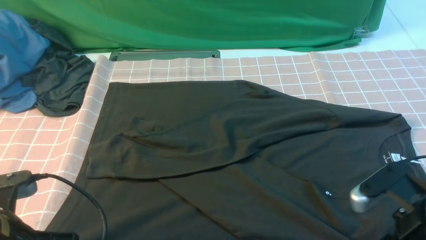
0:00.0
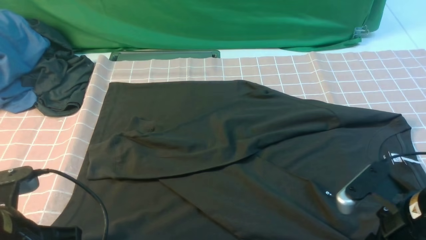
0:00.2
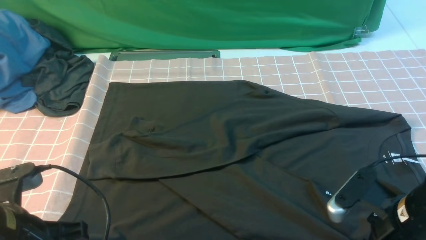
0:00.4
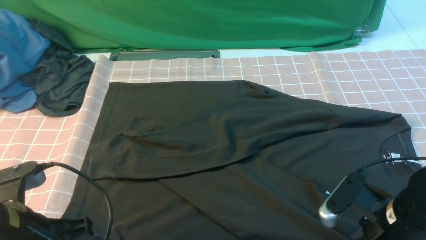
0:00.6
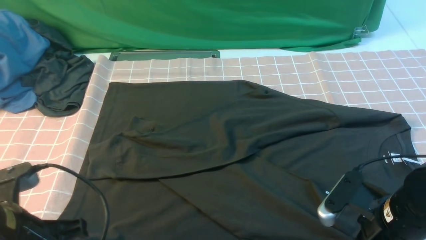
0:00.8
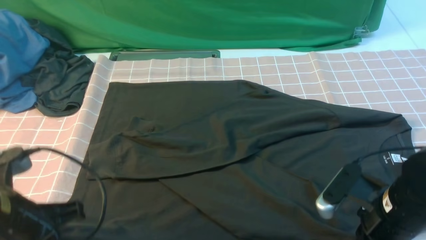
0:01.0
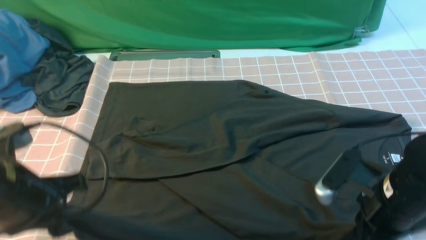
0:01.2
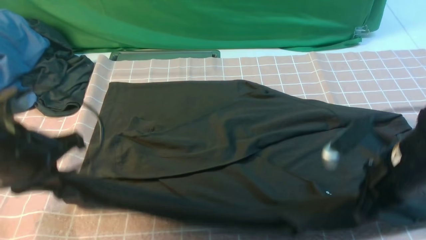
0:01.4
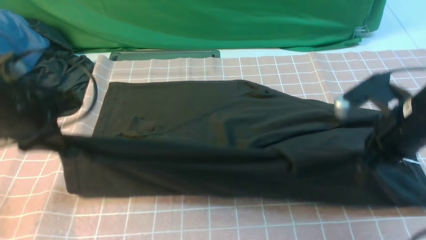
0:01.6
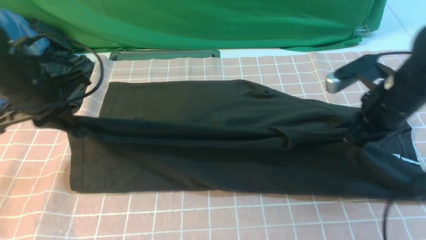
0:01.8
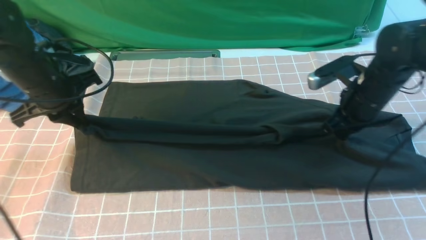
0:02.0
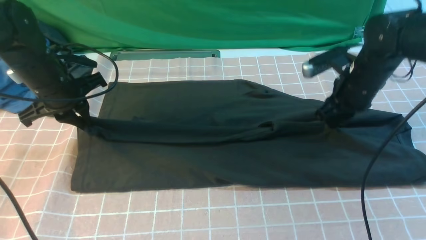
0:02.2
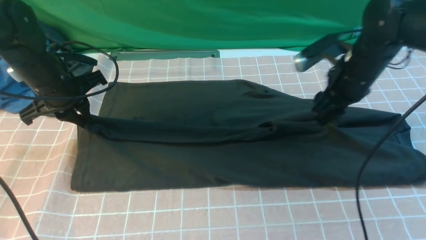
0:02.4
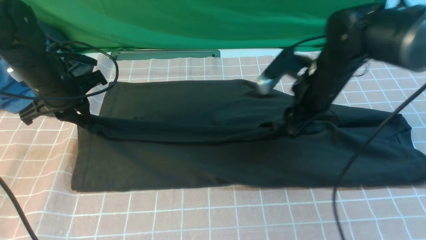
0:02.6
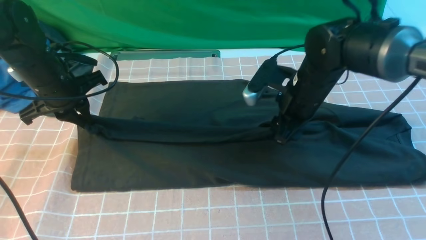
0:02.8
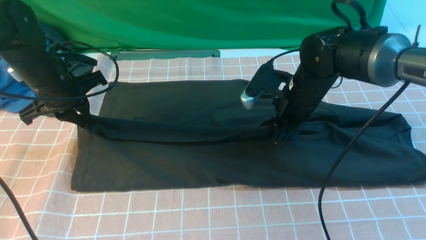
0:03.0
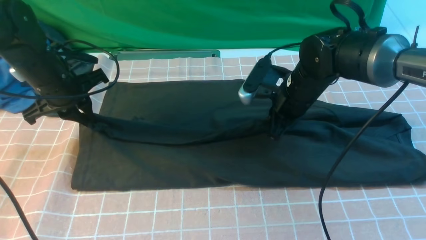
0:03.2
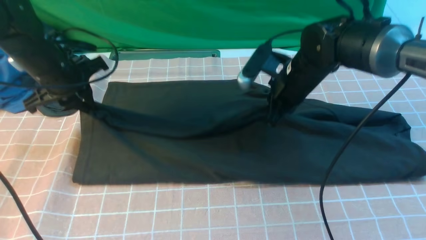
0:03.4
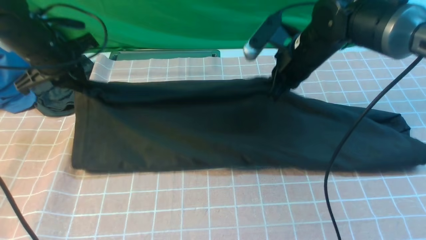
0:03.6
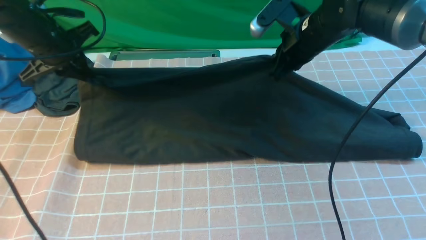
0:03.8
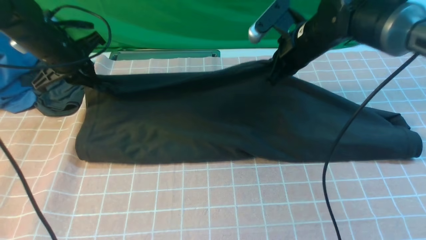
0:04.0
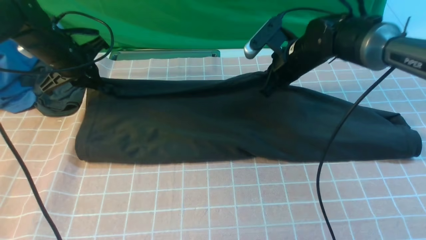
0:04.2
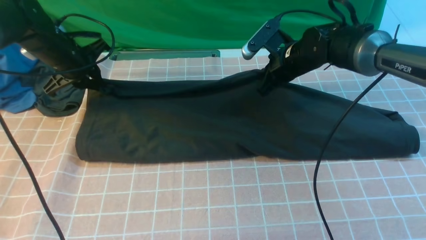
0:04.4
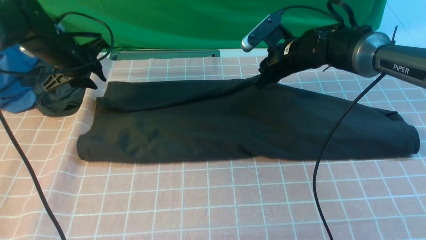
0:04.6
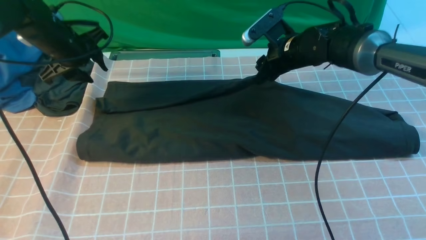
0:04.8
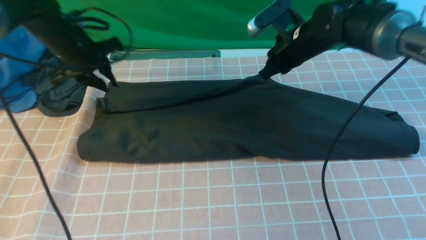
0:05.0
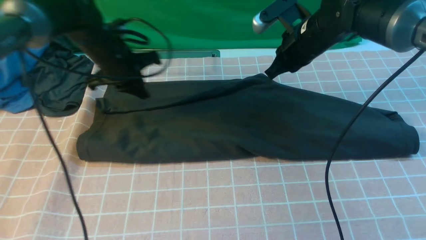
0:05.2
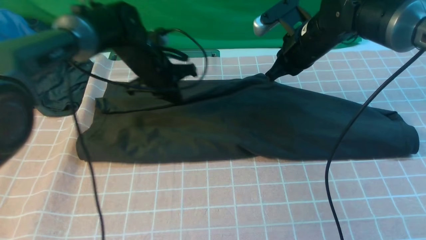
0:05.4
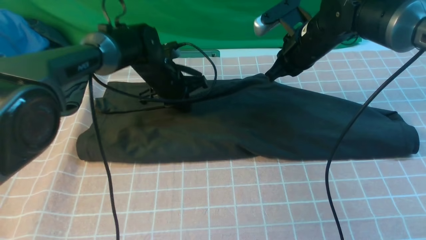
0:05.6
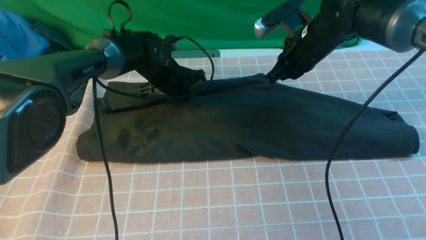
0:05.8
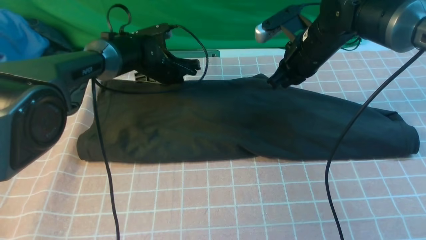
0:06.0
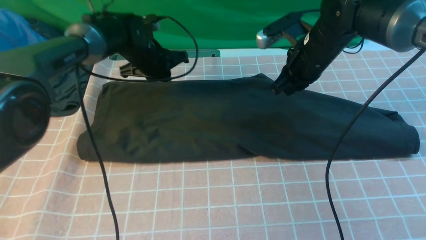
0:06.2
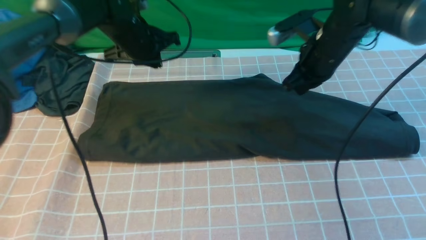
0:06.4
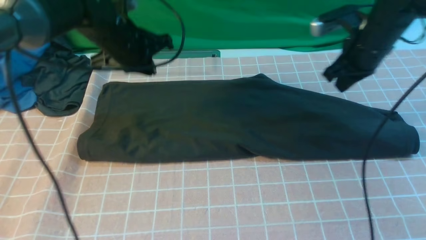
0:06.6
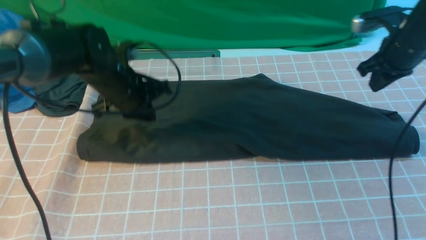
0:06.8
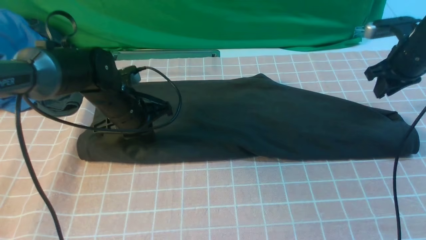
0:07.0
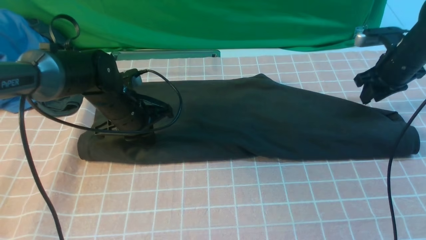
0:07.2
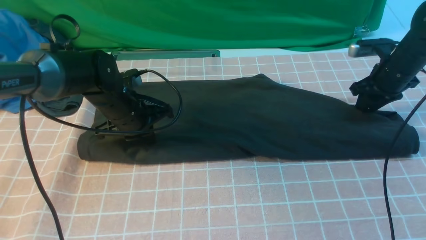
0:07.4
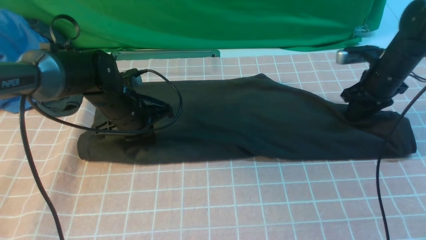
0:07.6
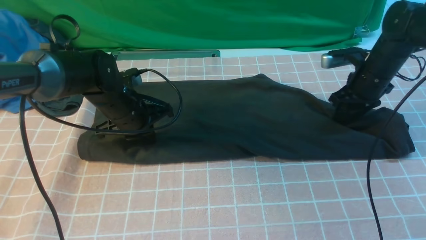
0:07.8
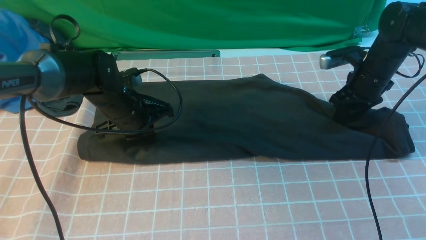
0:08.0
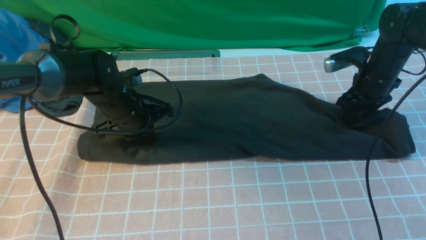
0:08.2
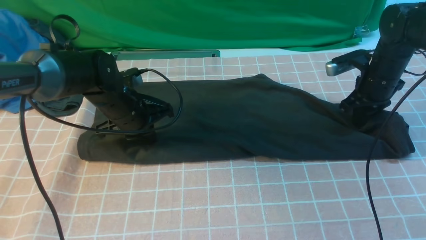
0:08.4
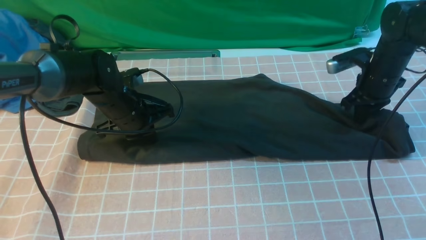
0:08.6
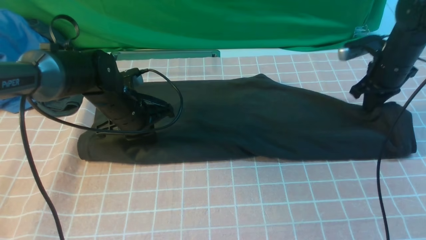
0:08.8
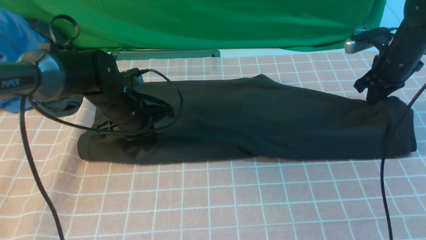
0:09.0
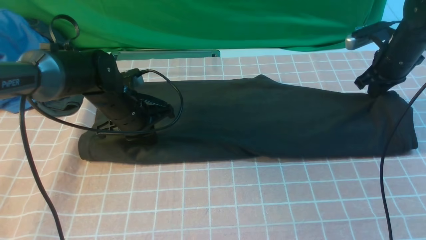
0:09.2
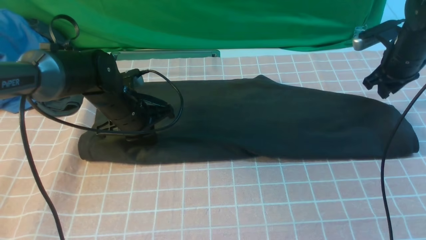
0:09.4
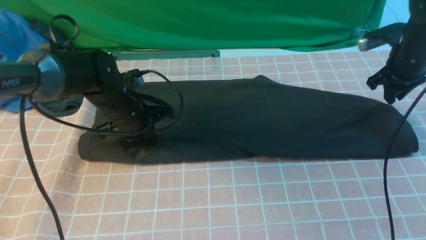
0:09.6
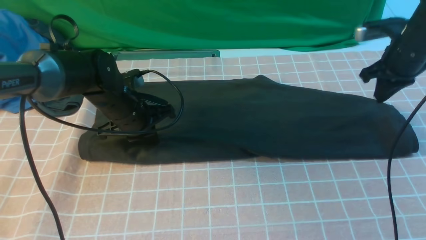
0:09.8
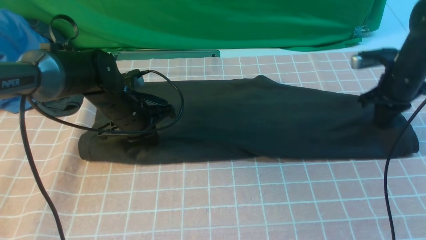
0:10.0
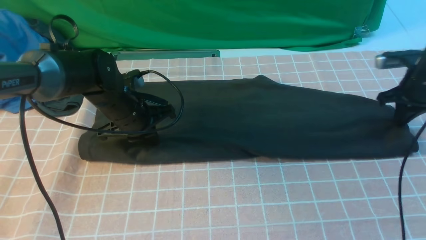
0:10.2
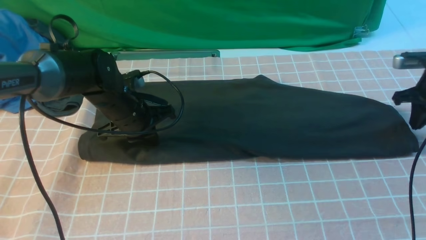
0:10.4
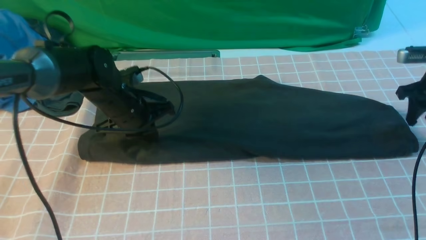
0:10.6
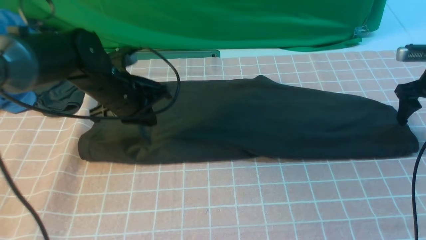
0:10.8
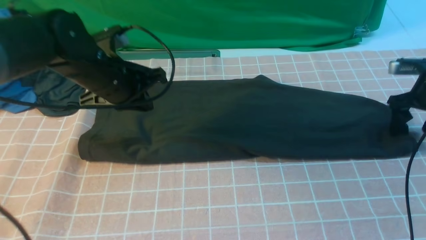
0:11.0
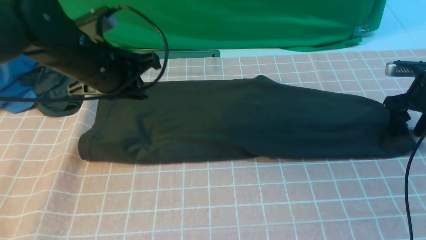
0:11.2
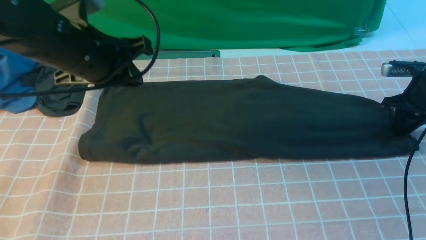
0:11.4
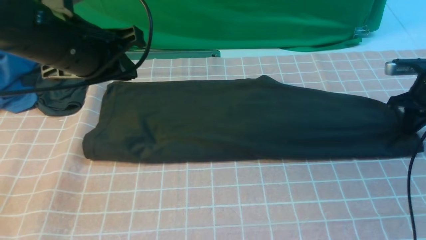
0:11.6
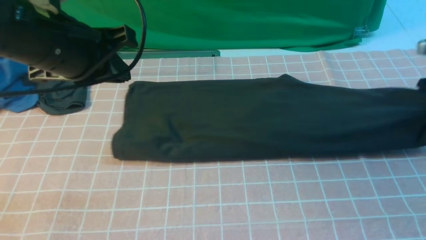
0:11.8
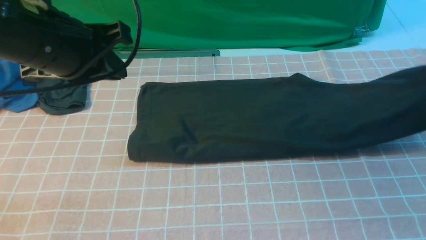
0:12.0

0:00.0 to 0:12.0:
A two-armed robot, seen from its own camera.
Step, 0:00.8 to 0:04.8: use both arms to drag the lower edge of the fabric forward and fold it over the upper edge.
Step, 0:05.0 to 0:11.4: use the right arm to clamp the right edge of the fabric.
0:00.0 to 0:01.6: The right gripper travels forward by about 10 cm, and closes. Meanwhile the left gripper moves forward and upward, some 15 cm.
0:01.6 to 0:03.0: The right gripper heads forward and to the left, covering approximately 15 cm, and opens. Meanwhile the left gripper shifts some 10 cm forward.
0:03.0 to 0:04.4: The two grippers go some 10 cm forward. The right gripper closes up.
0:04.4 to 0:06.0: The left gripper is displaced to the right by approximately 15 cm. Meanwhile the right gripper goes roughly 5 cm upward.
0:06.0 to 0:07.6: The left gripper moves backward, some 10 cm; the right gripper is displaced to the right and downward by about 15 cm, and opens up.
0:07.6 to 0:09.0: The right gripper closes up.
0:09.0 to 0:10.4: The right gripper is displaced to the right by some 5 cm.
0:10.4 to 0:12.0: The left gripper goes about 20 cm upward and backward, while the right gripper goes roughly 10 cm upward, and opens, then closes once more.

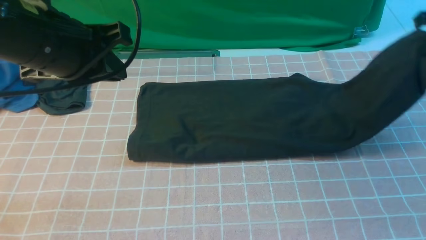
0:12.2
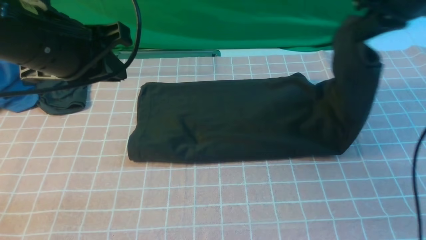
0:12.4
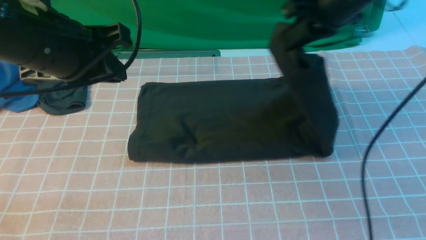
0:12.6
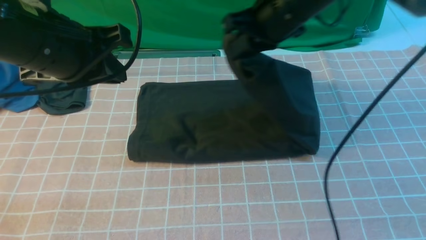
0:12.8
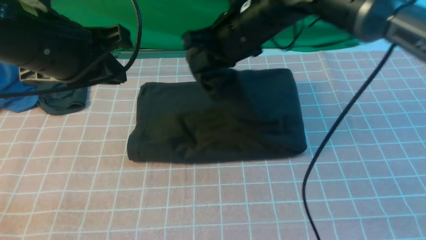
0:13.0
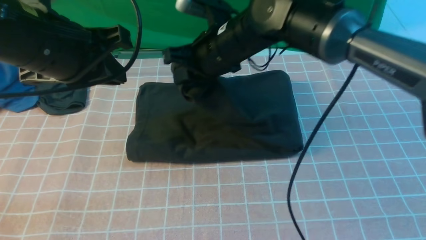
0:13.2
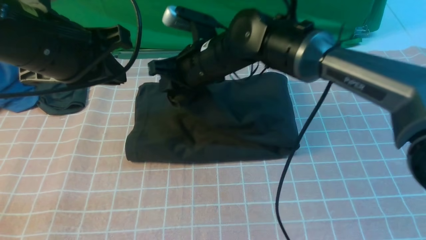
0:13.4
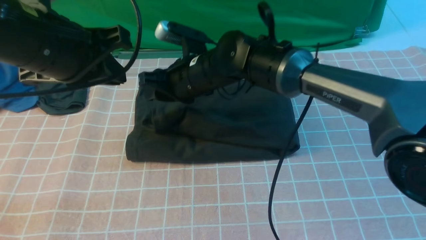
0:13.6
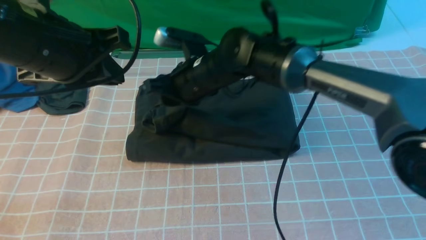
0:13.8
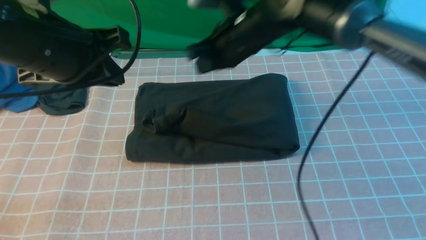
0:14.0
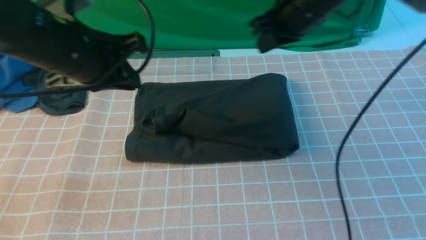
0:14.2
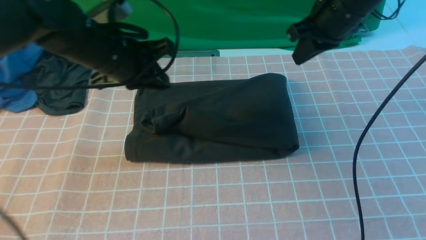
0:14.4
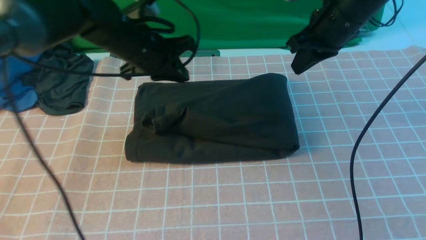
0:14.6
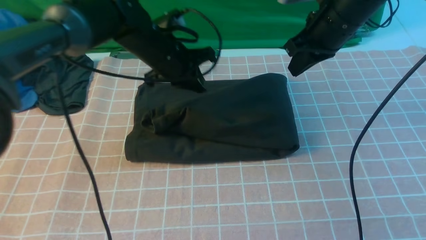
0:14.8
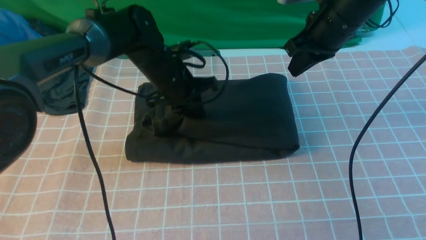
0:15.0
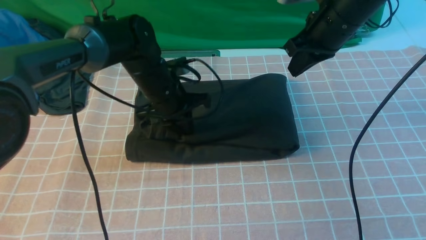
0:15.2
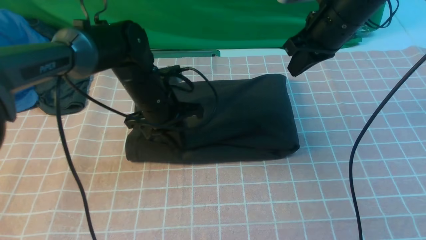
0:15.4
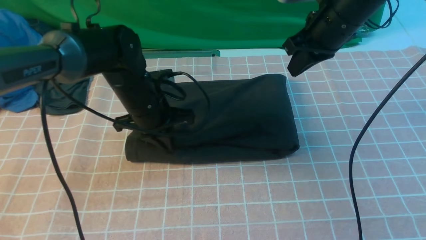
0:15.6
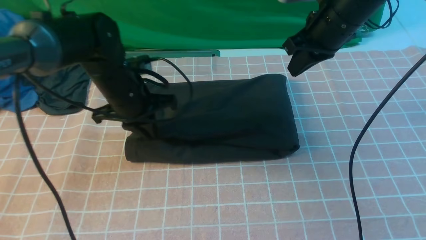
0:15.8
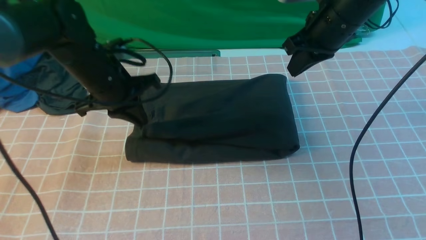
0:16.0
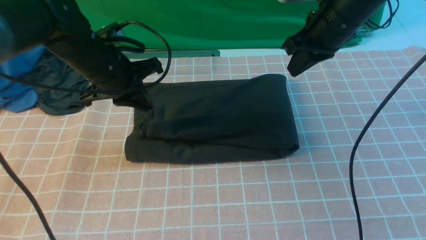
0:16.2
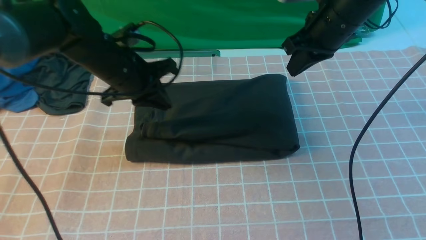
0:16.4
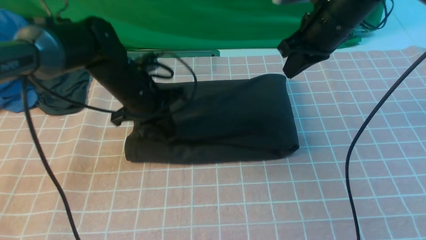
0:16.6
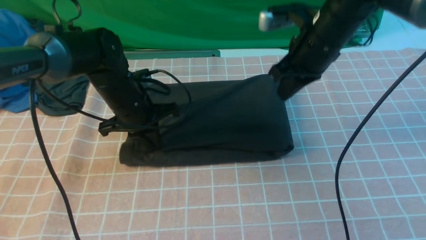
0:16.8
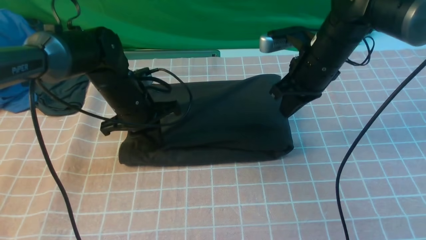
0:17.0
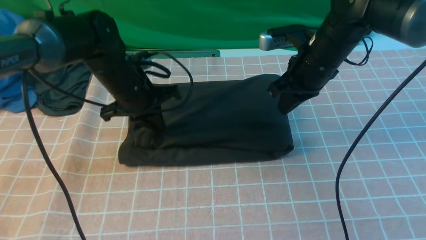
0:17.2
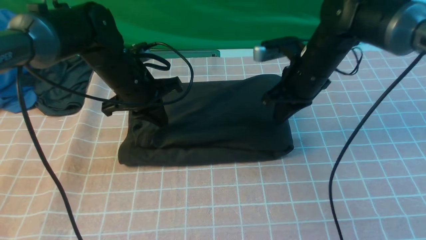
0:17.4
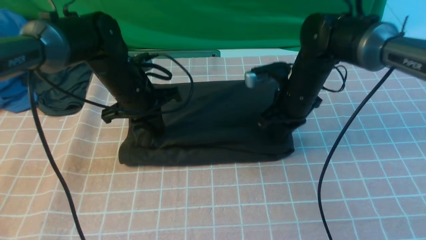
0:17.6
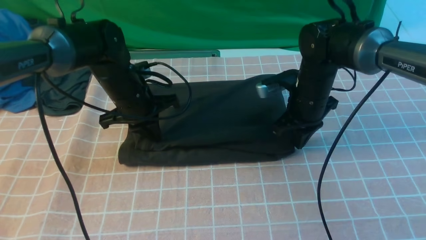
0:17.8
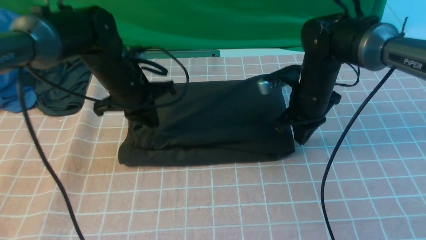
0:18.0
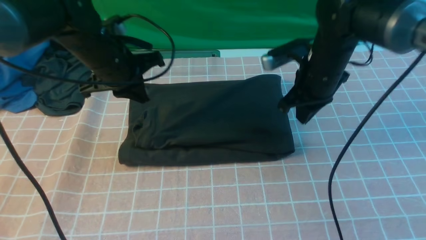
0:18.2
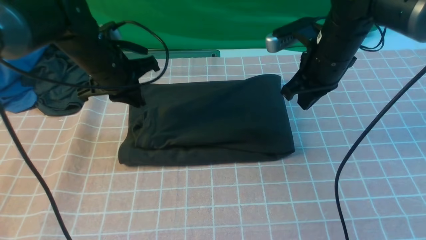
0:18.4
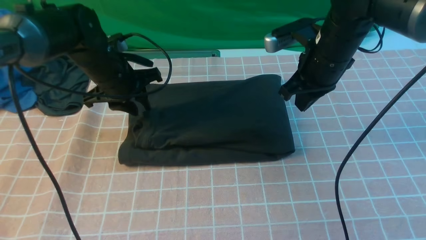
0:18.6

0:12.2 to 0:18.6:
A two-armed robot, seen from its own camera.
Step, 0:12.2 to 0:14.0: use the right arm to drag the right edge of the fabric to the left and folds it over the left edge.
0:12.2 to 0:13.8: The right gripper travels to the left by some 35 cm, and opens up.
0:13.8 to 0:15.4: The right gripper travels to the right by about 20 cm, and closes up. The left gripper heads downward and forward, covering approximately 20 cm.
0:15.4 to 0:17.0: The right gripper heads downward, covering roughly 5 cm.
0:17.0 to 0:18.6: The right gripper goes downward and returns, about 10 cm each way; the left gripper opens its fingers.
